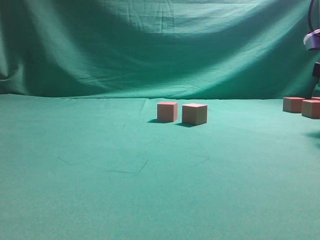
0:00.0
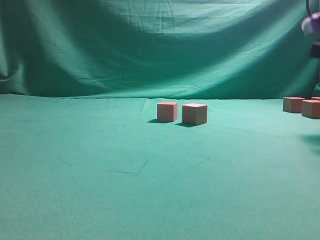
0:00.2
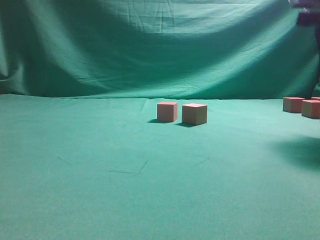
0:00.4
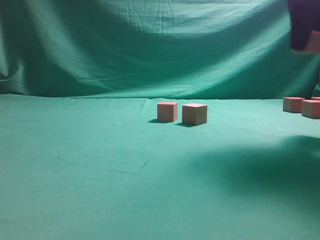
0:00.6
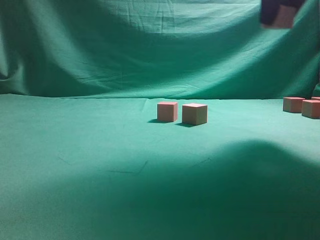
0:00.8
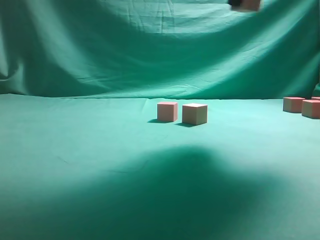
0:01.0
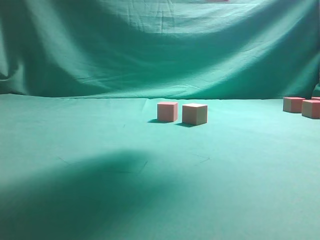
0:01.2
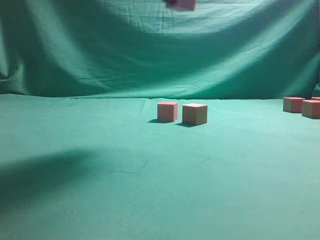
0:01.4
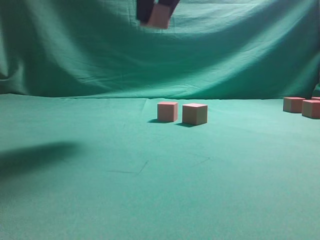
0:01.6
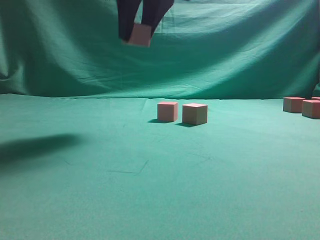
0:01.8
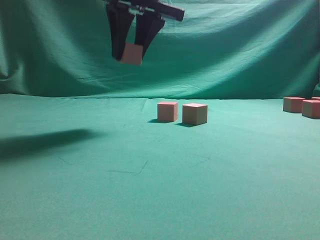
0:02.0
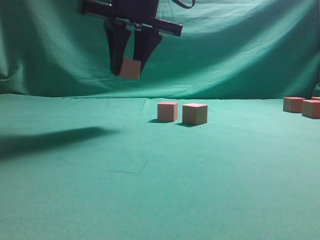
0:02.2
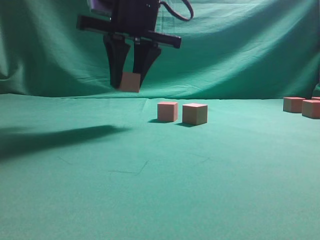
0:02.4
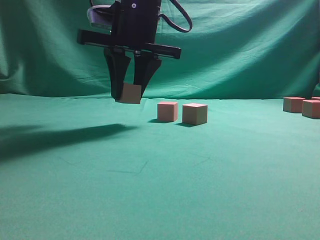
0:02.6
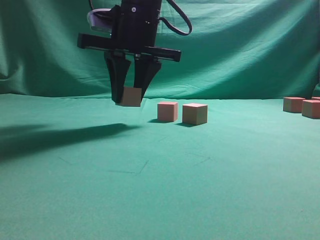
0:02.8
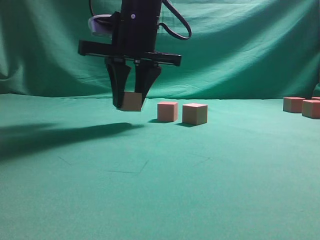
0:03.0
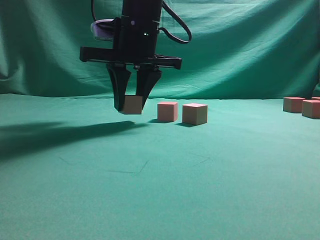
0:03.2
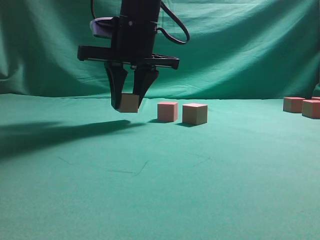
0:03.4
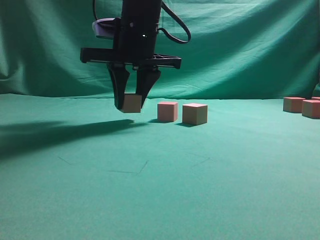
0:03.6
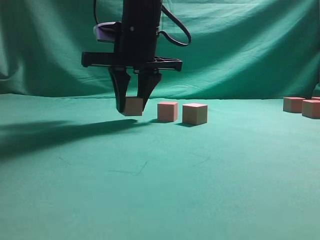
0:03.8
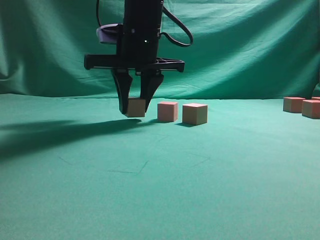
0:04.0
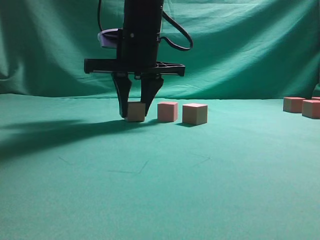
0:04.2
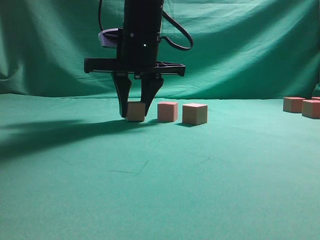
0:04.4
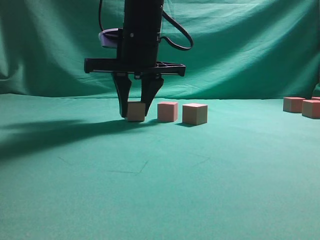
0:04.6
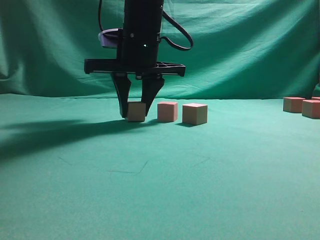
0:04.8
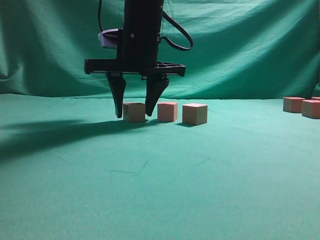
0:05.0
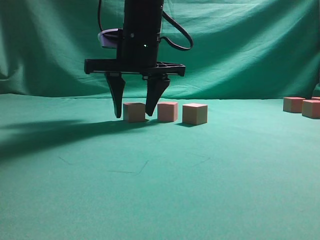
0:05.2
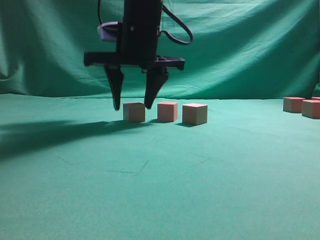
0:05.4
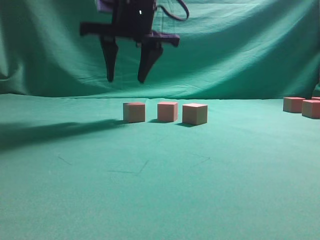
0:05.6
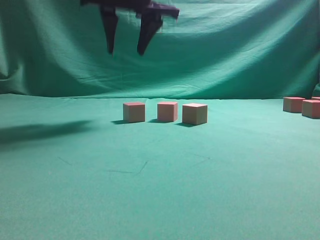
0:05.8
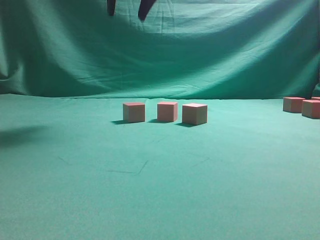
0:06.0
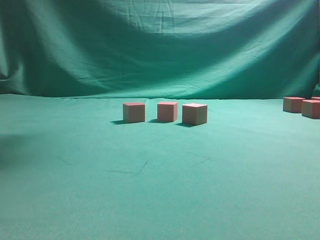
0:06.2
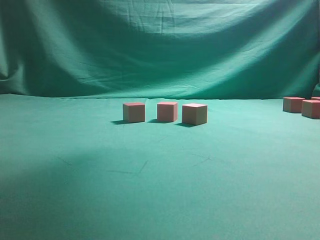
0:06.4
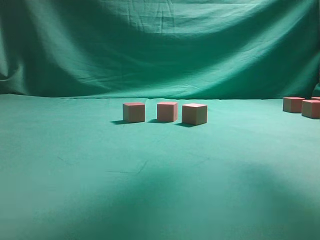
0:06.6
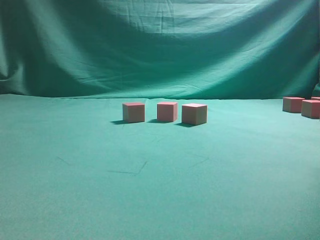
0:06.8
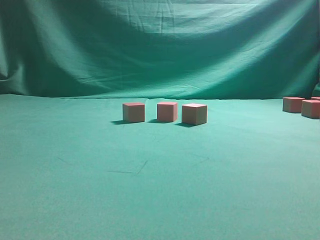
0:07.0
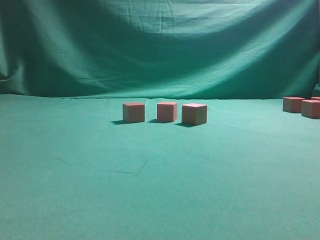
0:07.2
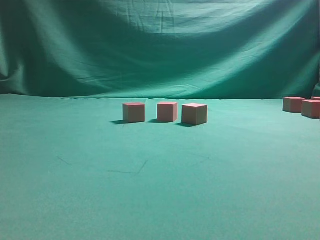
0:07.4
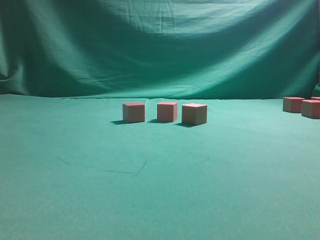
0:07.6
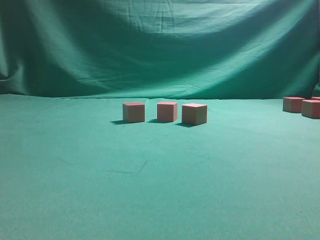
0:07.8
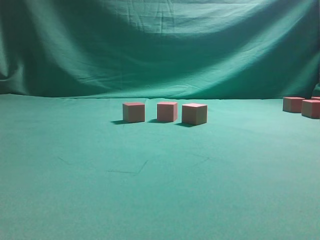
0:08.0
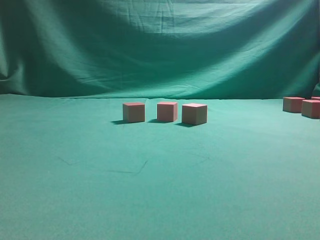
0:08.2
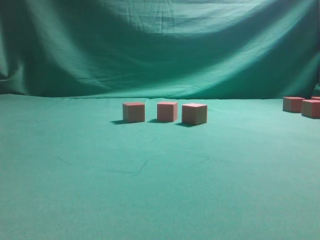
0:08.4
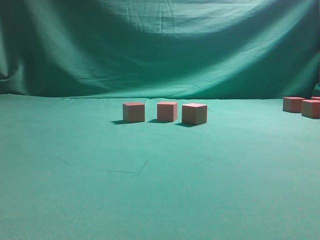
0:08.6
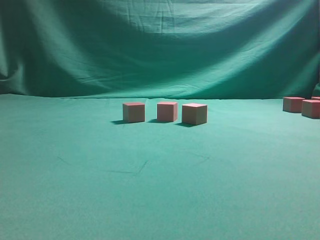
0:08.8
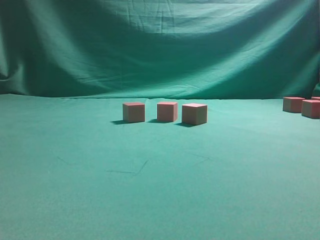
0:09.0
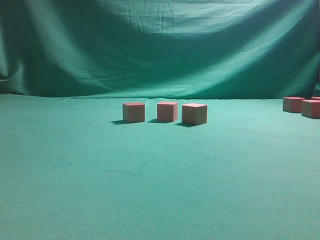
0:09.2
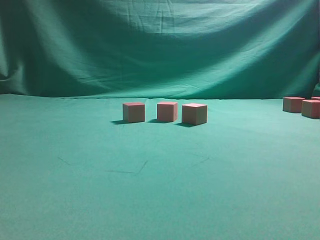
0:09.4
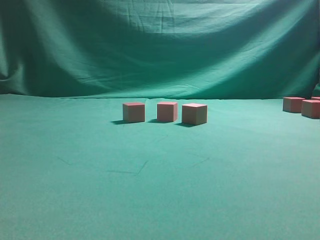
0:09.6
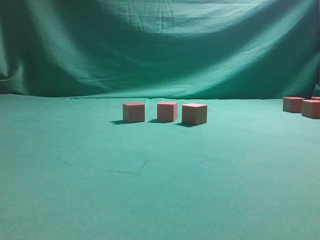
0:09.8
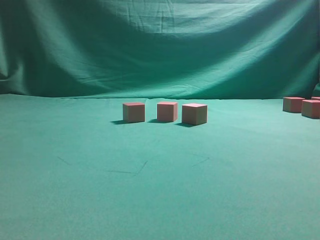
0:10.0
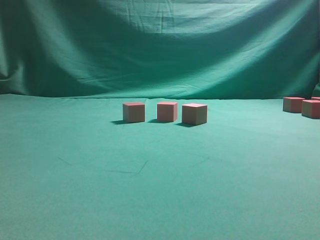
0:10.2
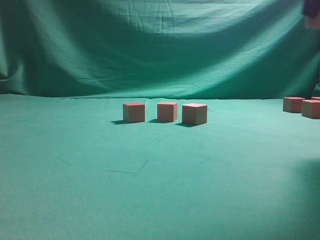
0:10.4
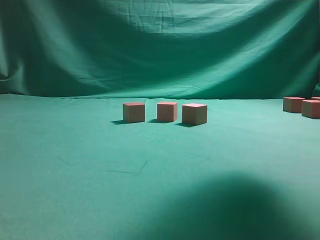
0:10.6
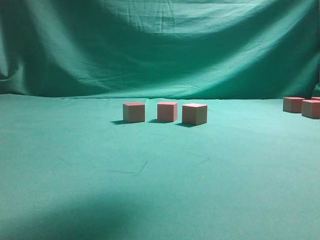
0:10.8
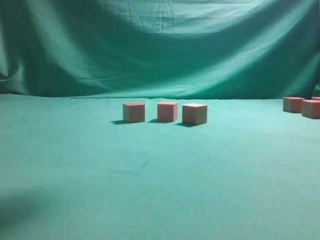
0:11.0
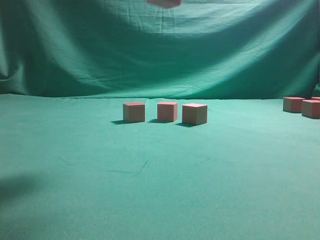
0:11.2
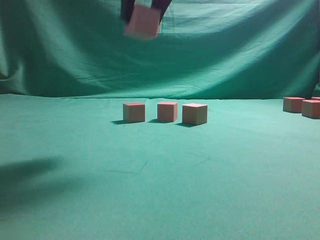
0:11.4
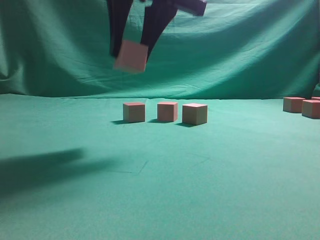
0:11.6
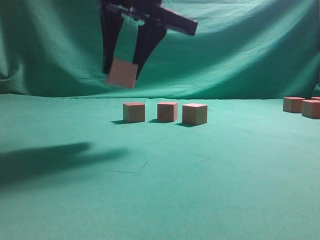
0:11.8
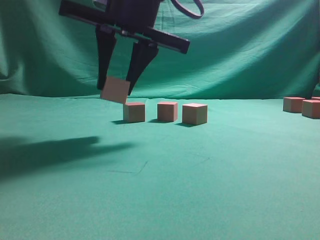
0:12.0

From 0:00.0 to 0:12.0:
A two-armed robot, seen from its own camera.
Task of the whole recording: pick up the multiple cubes in two columns one by one and place them in another position on the table.
Step, from 0:00.6 to 0:05.8: Place the block at the correct position to assemble the letter S.
Step, from 0:06.0 to 0:10.2: Pick up the block on the table.
From 0:00.0 to 0:01.6: The right gripper goes about 30 cm to the left and upward.
From 0:01.6 to 0:03.0: The right gripper travels downward and to the left by roughly 15 cm.
From 0:03.0 to 0:04.4: The grippers move only a little.
From 0:04.4 to 0:06.0: The right gripper moves upward, about 15 cm.
From 0:09.0 to 0:10.4: The right gripper goes about 20 cm upward, to the left and backward.
From 0:10.4 to 0:12.0: The right gripper travels to the left by approximately 25 cm.

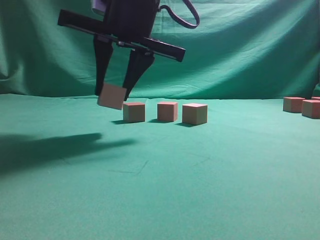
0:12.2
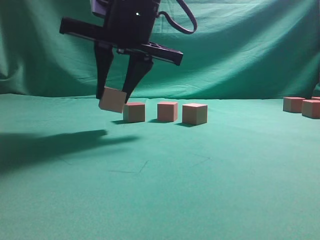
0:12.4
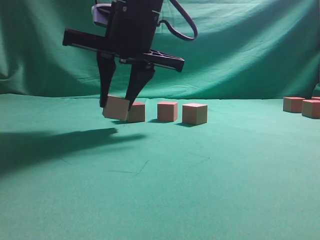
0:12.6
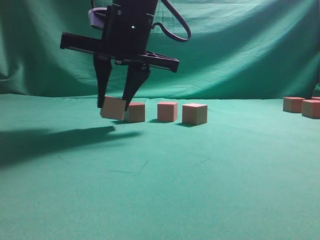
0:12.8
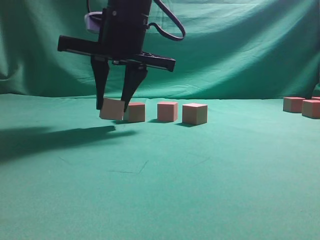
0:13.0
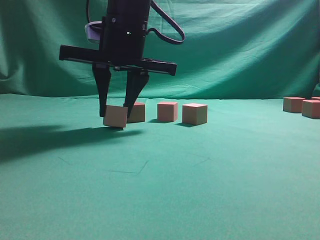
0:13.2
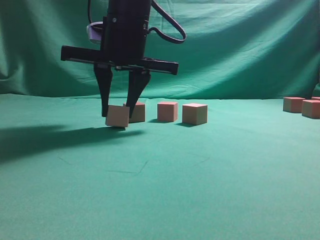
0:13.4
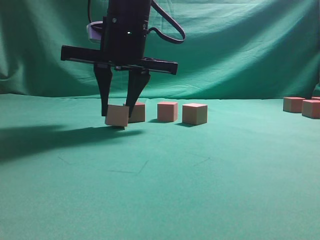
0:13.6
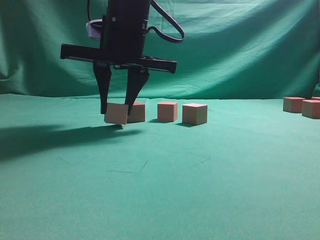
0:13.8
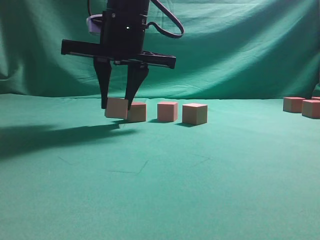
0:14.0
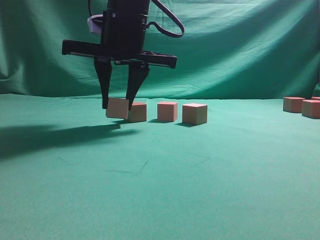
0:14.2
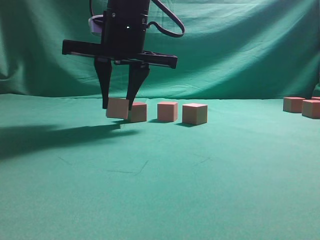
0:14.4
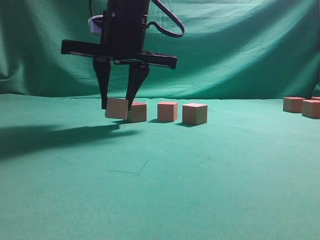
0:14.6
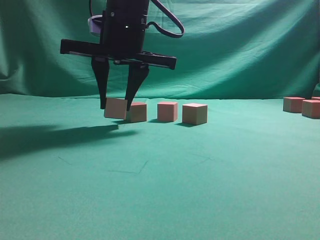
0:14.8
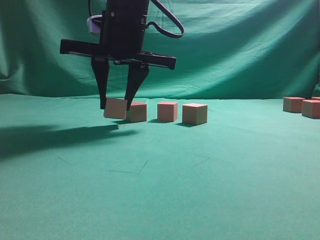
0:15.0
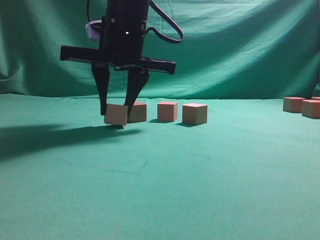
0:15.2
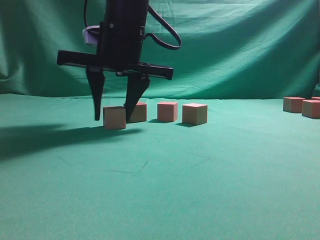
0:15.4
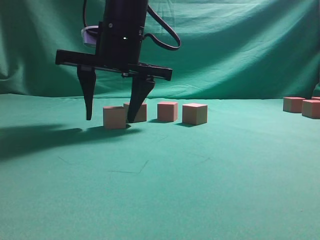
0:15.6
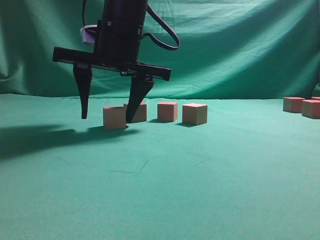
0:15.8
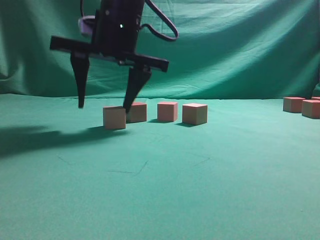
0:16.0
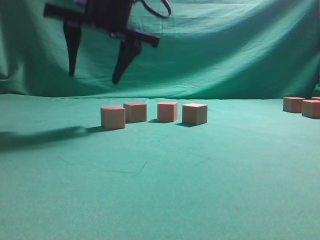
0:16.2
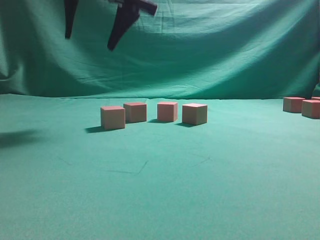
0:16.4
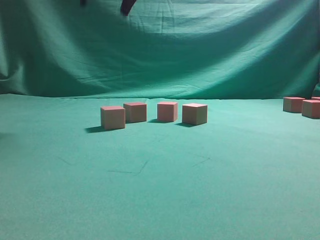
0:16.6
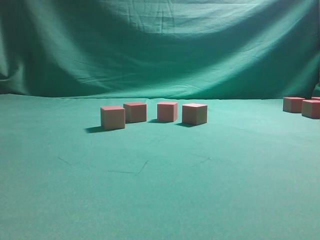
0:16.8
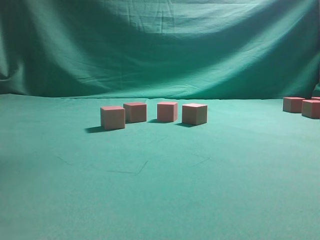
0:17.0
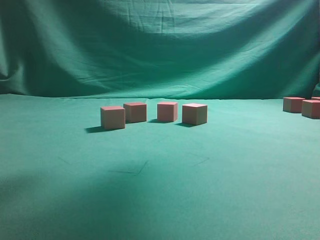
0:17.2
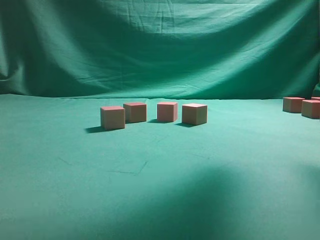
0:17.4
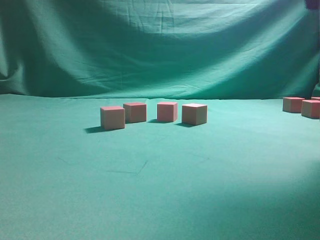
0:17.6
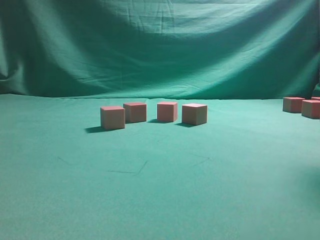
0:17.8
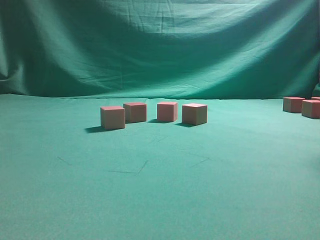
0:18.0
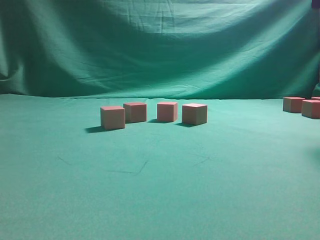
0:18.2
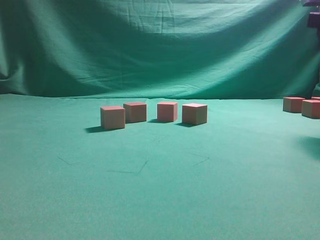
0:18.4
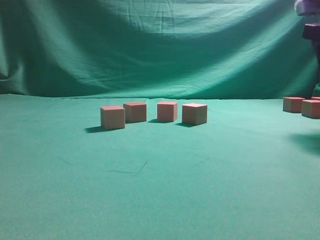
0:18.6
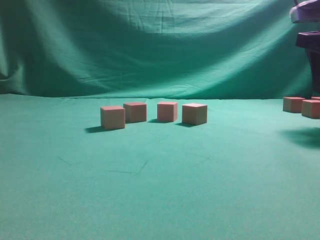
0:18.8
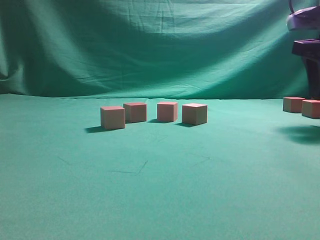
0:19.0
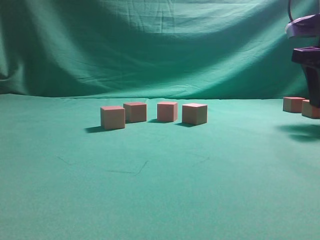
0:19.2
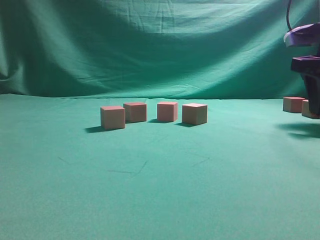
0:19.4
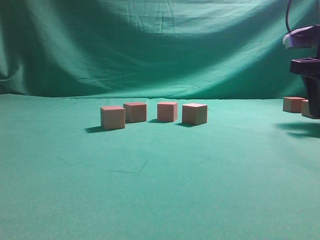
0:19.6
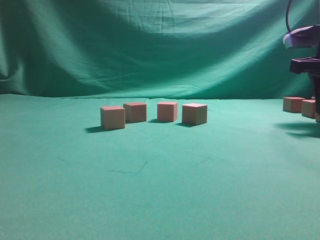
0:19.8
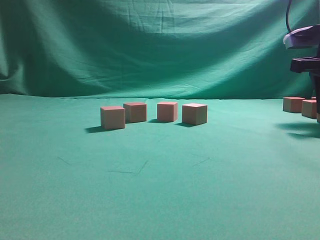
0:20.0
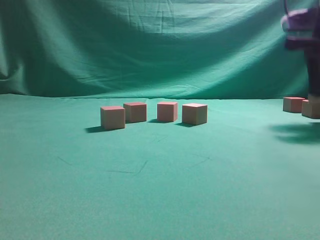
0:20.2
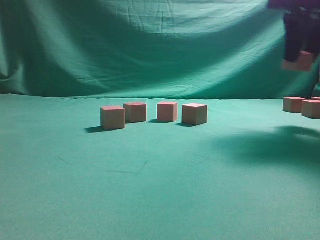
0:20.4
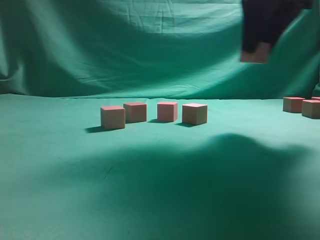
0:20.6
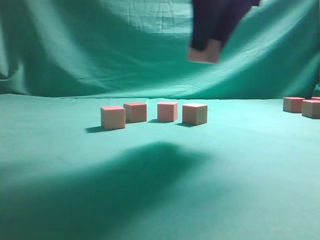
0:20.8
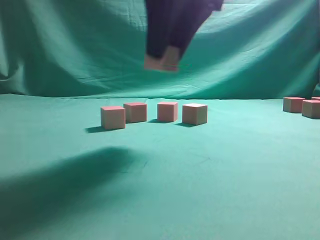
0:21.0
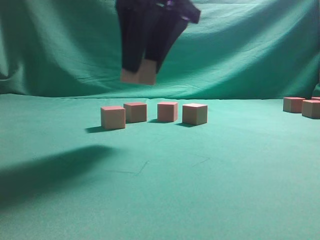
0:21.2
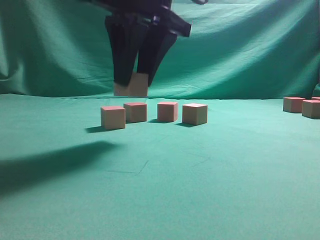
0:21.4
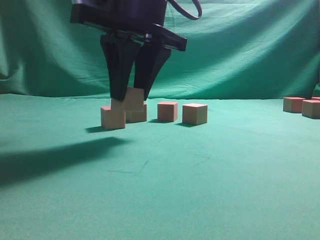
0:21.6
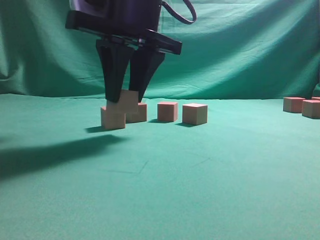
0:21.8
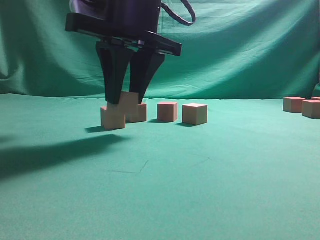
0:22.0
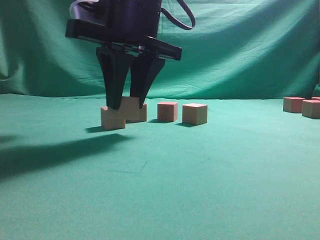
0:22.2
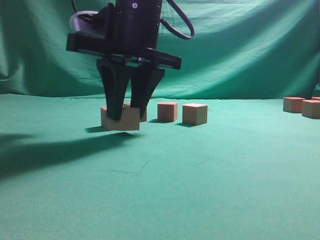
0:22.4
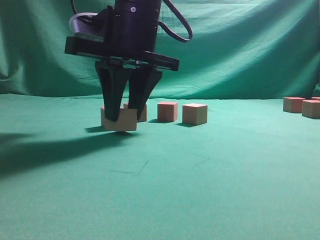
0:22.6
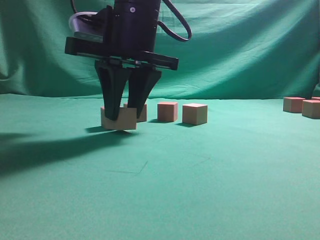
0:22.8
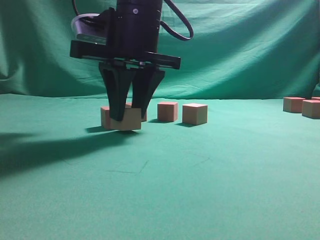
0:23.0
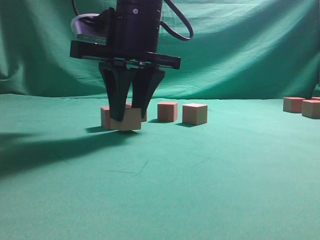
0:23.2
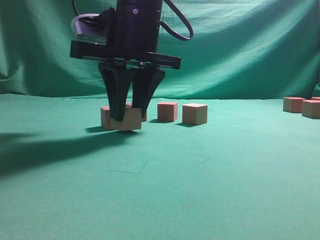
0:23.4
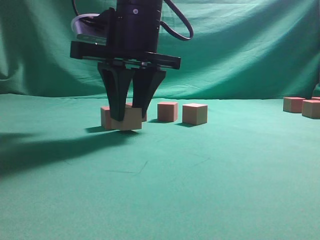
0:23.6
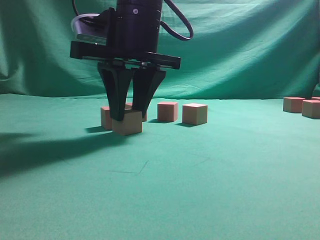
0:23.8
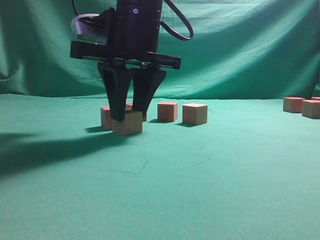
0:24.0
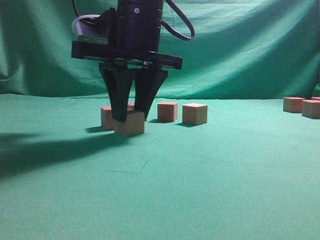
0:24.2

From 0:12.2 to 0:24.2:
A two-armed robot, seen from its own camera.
Task of the whole recording: pick up the multiple cubes in two columns one by one and place them in another position on the table.
Step, from 0:12.2 to 0:16.2: Place the block at the correct position to assemble the letter S.
Step, from 0:16.4 to 0:20.2: Pick up the block on the table.
From 0:12.2 to 0:13.8: The grippers stay close to where they were, moving slightly.
From 0:13.8 to 0:15.2: Both grippers stay put.
From 0:15.2 to 0:16.6: The right gripper travels upward by about 15 cm, and opens.
From 0:18.2 to 0:19.8: The right gripper is displaced downward and forward by roughly 10 cm.
From 0:19.8 to 0:21.2: The right gripper is displaced to the left by about 25 cm.
From 0:21.2 to 0:22.6: The right gripper travels downward by about 5 cm.
From 0:22.6 to 0:24.2: Both grippers stay put.
